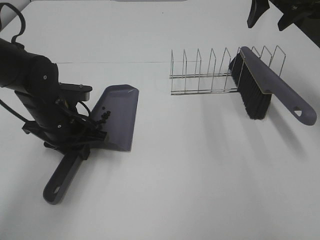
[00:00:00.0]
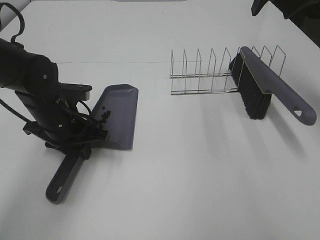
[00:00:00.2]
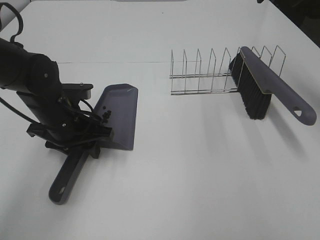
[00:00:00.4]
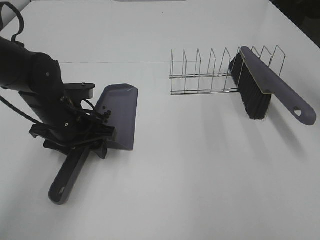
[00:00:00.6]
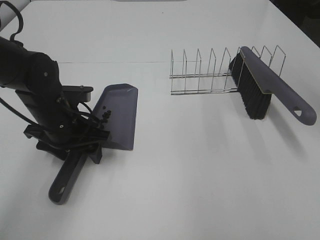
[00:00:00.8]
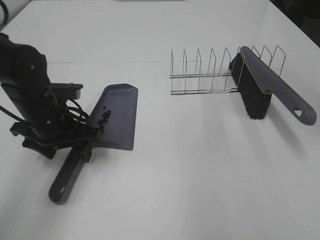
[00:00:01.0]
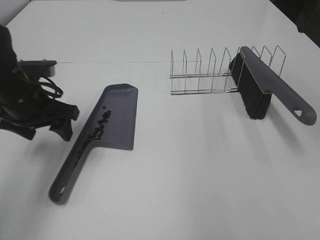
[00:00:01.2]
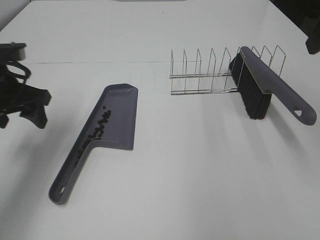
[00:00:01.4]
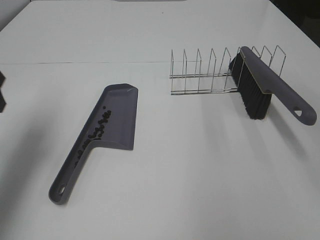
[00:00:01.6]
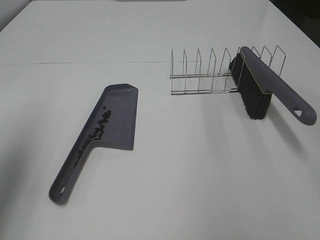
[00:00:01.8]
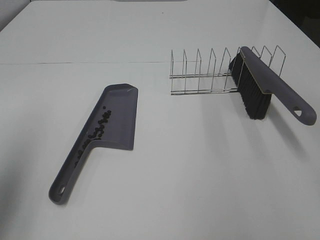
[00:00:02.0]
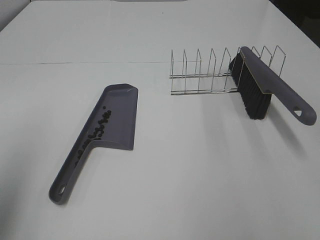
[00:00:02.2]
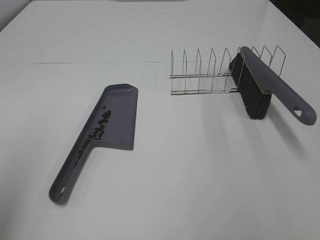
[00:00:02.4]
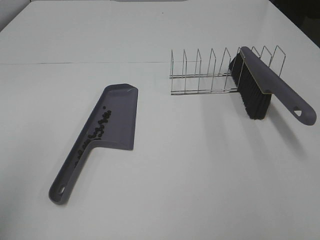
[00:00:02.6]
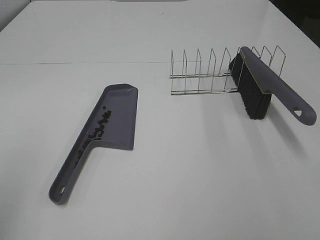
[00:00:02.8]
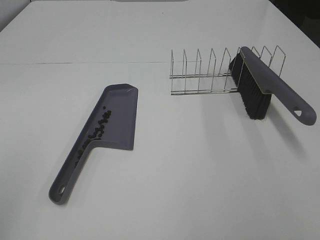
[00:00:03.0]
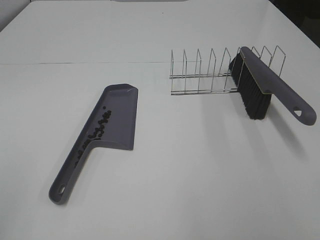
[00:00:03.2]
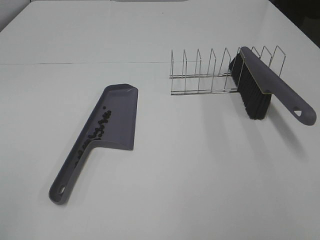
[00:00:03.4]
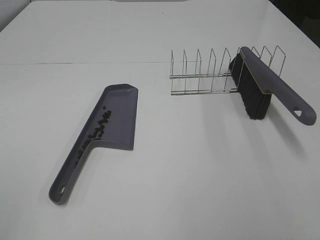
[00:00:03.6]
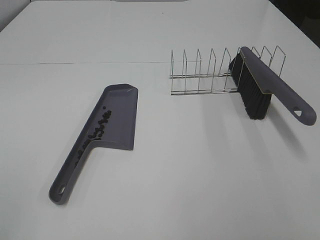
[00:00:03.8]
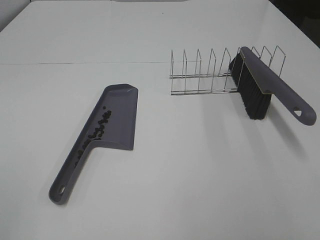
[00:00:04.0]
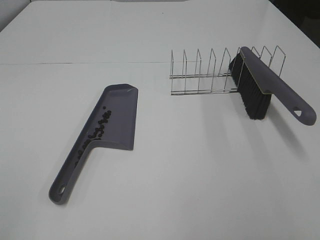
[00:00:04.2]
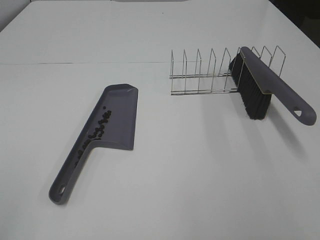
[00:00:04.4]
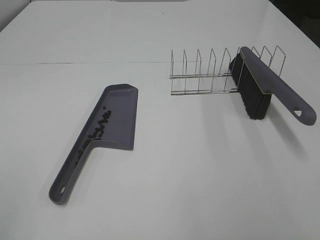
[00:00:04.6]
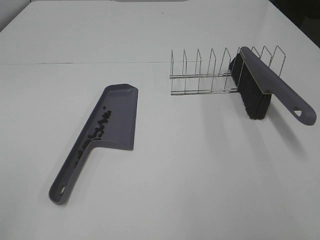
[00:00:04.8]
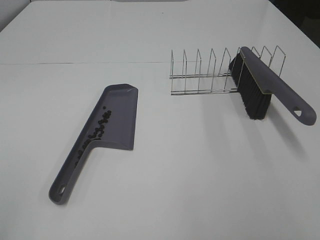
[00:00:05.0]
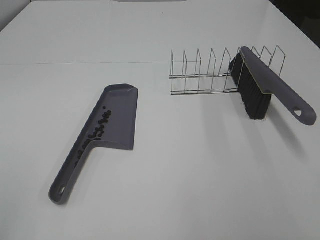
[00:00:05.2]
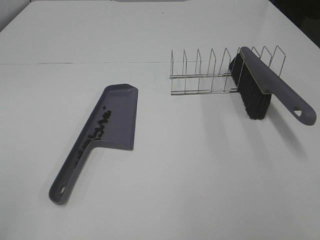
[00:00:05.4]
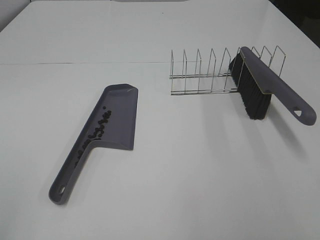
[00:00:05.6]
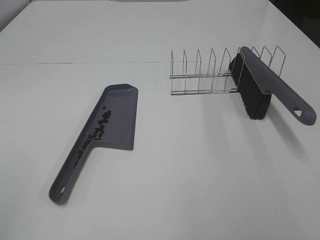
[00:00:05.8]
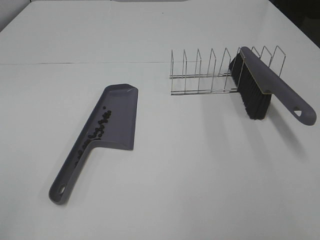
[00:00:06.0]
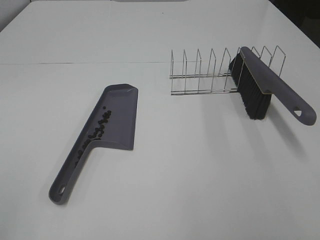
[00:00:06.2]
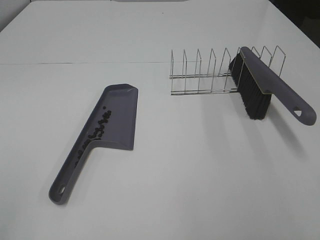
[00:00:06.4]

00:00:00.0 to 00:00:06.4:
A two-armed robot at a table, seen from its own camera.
Task of the whole recording: Sweep Coffee Bean.
00:00:00.0 to 00:00:01.6: The right gripper goes roughly 25 cm backward; the left gripper moves upward and to the left, some 20 cm, and opens.
00:00:01.6 to 00:00:03.2: The left gripper goes about 30 cm backward.
00:00:04.8 to 00:00:06.4: The two grippers keep their place.
